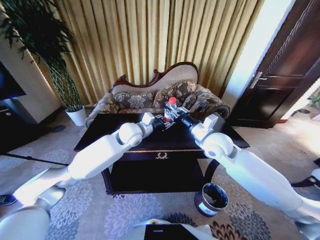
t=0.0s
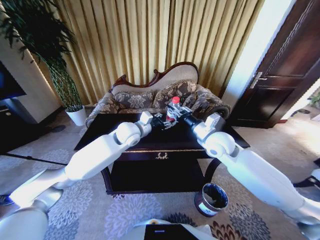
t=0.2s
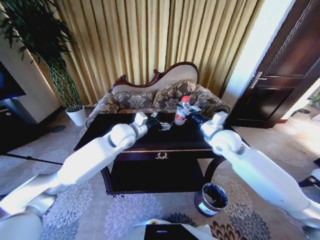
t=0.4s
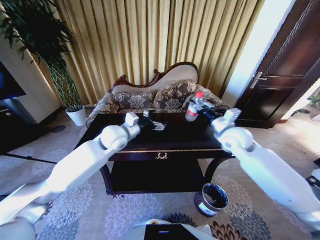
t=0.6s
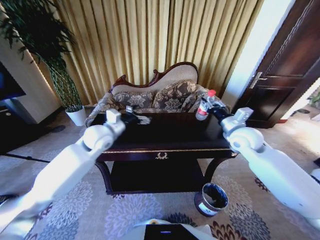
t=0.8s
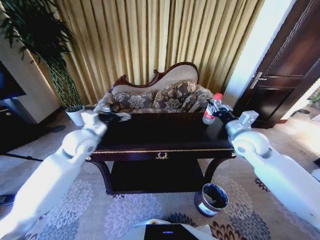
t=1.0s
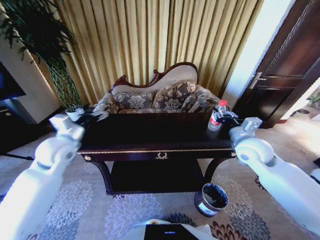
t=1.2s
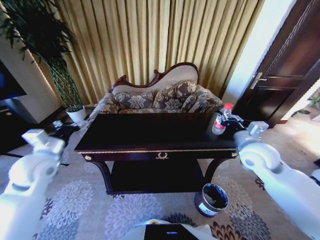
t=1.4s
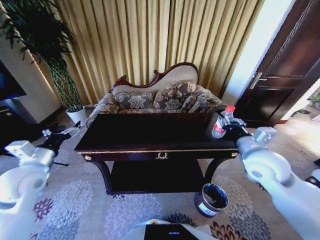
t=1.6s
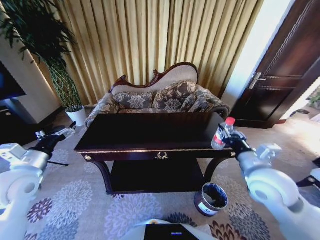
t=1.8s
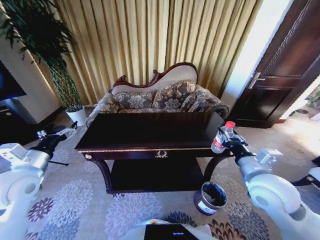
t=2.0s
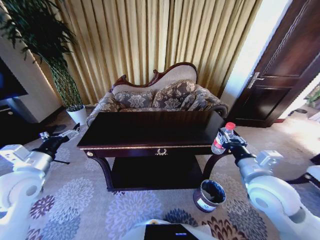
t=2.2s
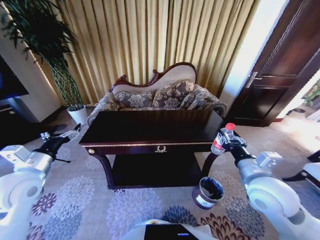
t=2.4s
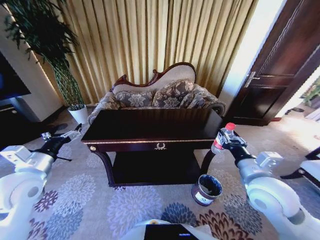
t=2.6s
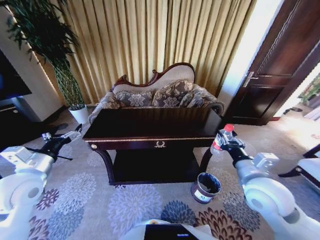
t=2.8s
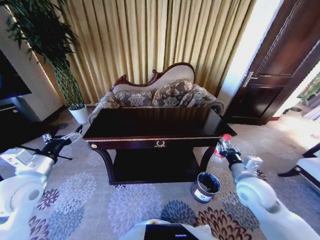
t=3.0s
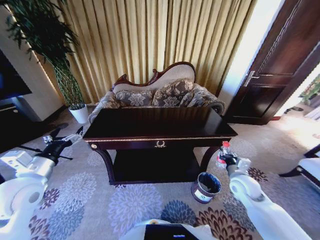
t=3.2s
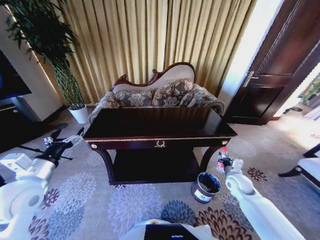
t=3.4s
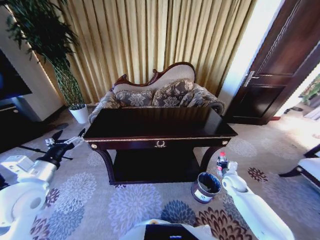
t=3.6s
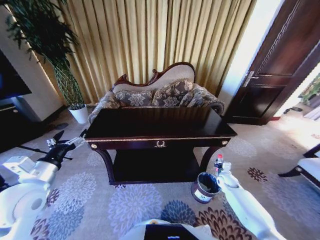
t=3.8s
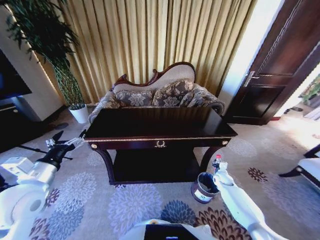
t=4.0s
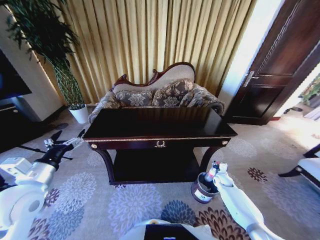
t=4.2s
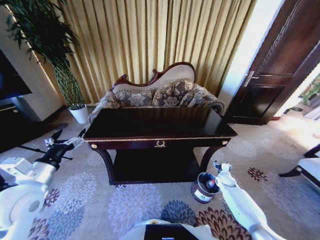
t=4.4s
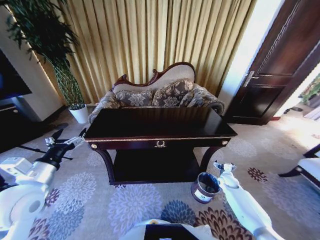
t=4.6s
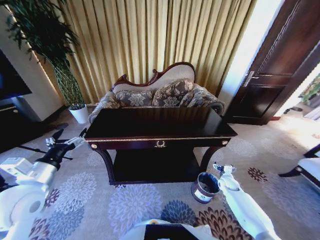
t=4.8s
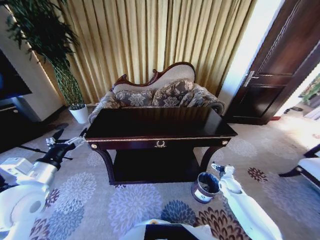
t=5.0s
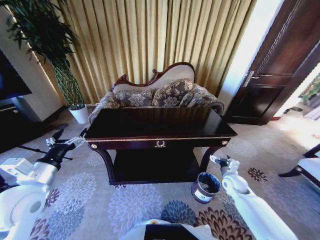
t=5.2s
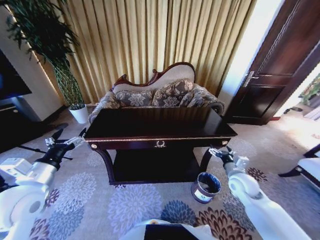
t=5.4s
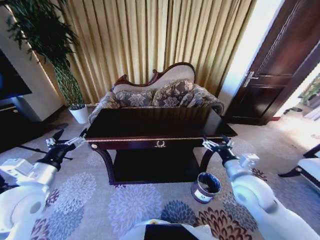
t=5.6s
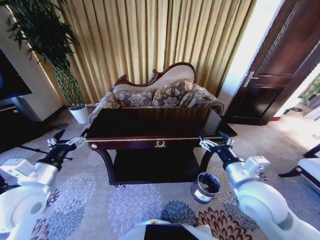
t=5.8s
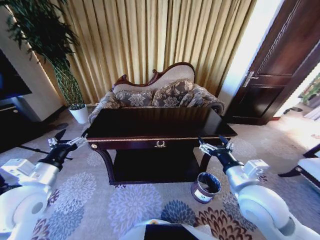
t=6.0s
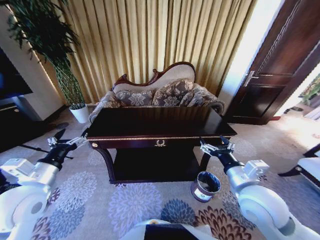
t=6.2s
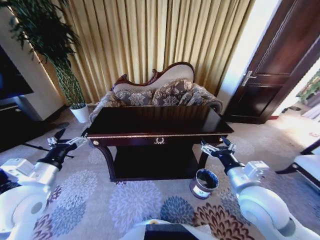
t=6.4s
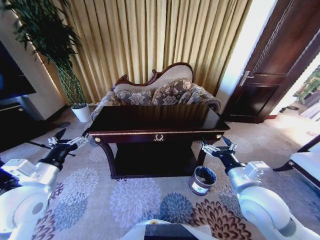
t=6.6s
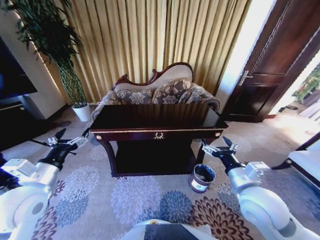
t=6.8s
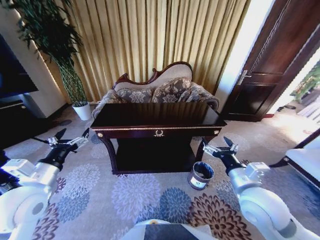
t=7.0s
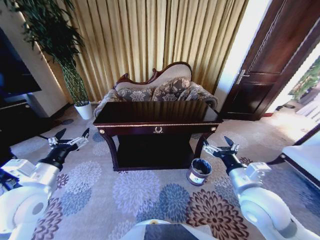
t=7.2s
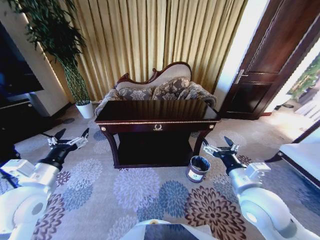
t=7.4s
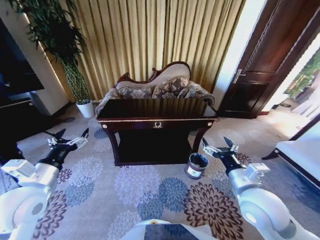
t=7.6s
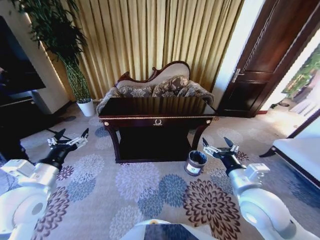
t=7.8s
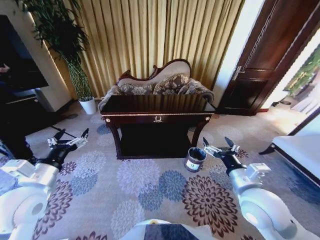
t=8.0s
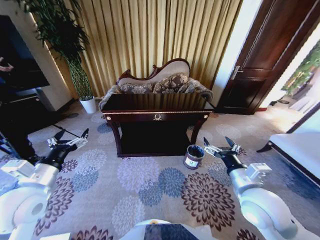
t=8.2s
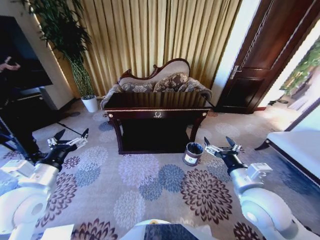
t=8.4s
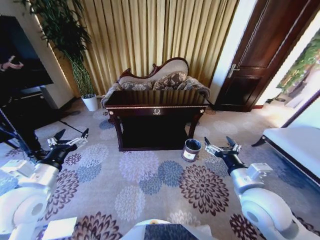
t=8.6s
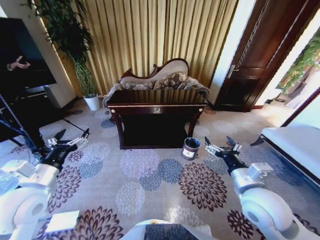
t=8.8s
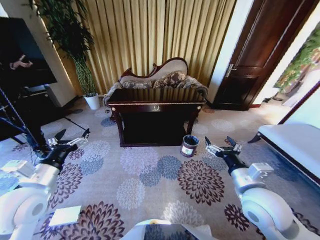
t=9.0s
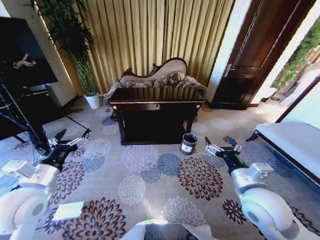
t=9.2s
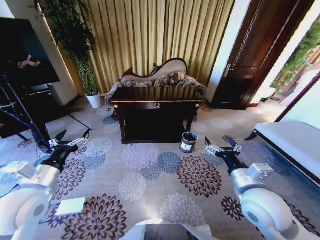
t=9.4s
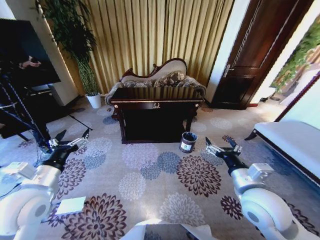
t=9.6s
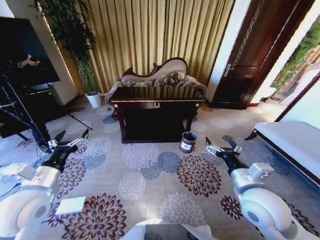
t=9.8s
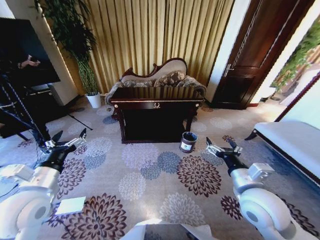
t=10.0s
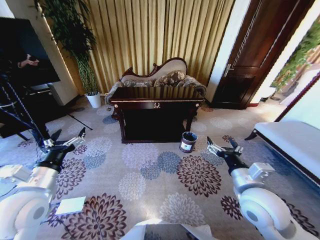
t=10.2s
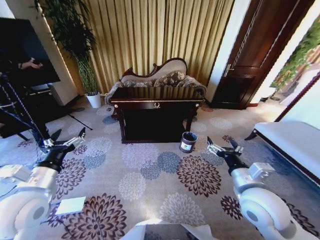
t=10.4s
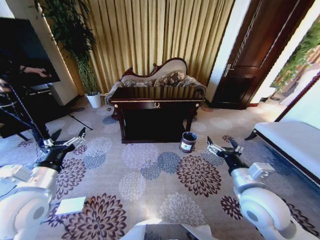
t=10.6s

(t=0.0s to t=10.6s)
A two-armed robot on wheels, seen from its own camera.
Task of the whole recording: Move to the front of the table and place the trash on the table into the trash bin.
t=0.0s - t=1.6s: The left gripper moves to the left and backward, roughly 35 cm, and opens, while the right gripper goes approximately 15 cm to the right and backward.
t=1.6s - t=3.0s: The right gripper is displaced downward by approximately 10 cm.
t=3.0s - t=4.6s: The right gripper travels downward, forward and to the right by approximately 35 cm, and opens up.
t=4.6s - t=6.0s: The right gripper goes approximately 40 cm upward, backward and to the left.
